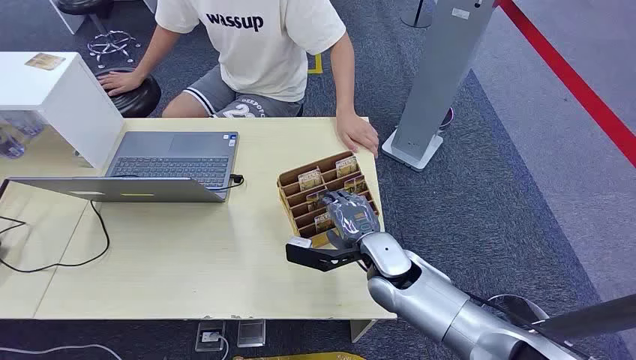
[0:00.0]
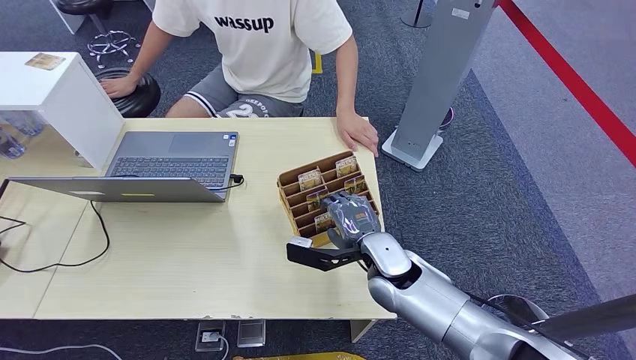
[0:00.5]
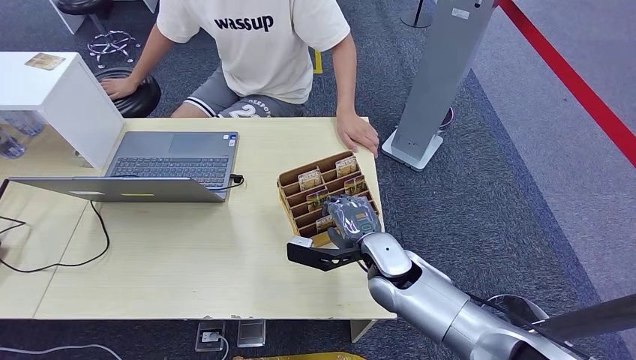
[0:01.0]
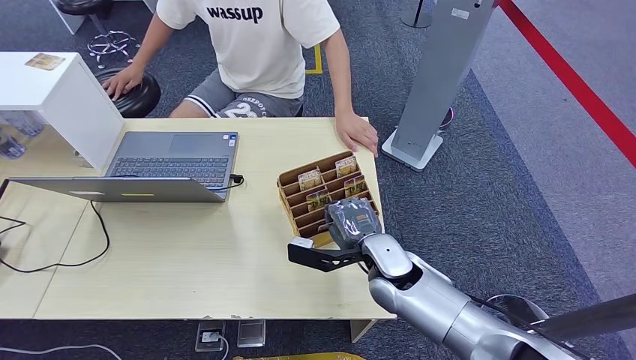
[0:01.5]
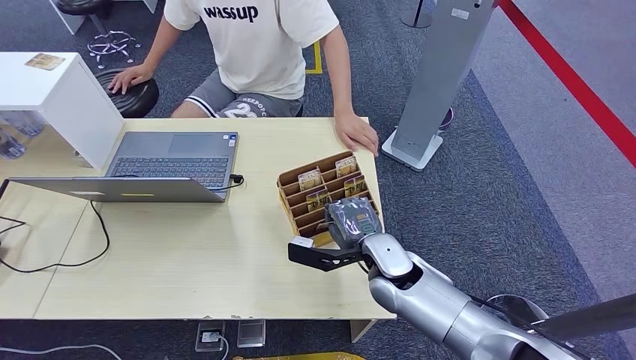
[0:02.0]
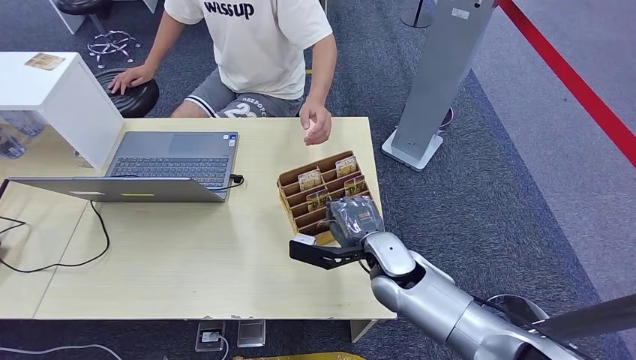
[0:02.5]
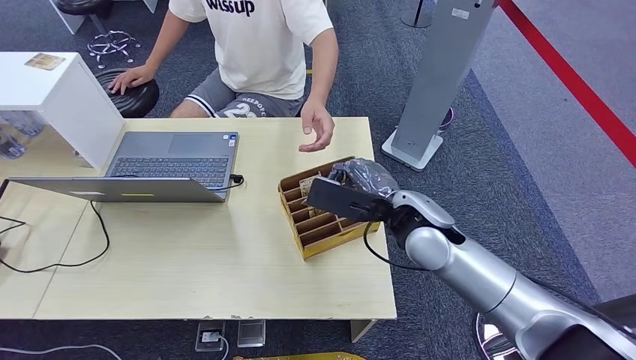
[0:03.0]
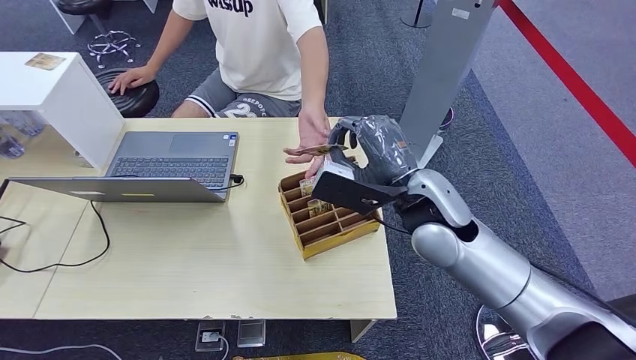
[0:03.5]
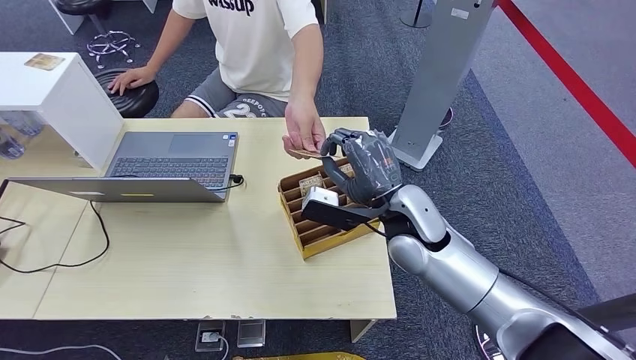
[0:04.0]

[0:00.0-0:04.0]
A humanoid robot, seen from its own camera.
Task of the whole recording: Pick up the card and hand it over to the target person.
Step, 0:00.0 to 0:02.5: Pick up the key card from the card box.
Step, 0:03.0 to 0:04.0: Hand the key card to the target.
0:02.0 to 0:04.0: The right hand is displaced upward by some 5 cm.
